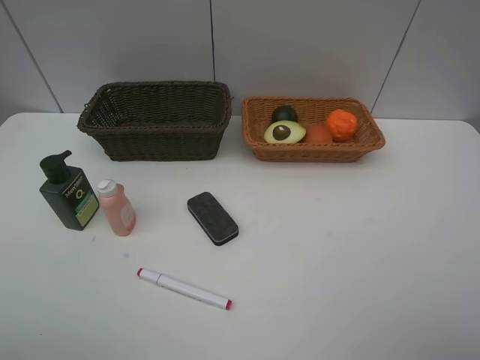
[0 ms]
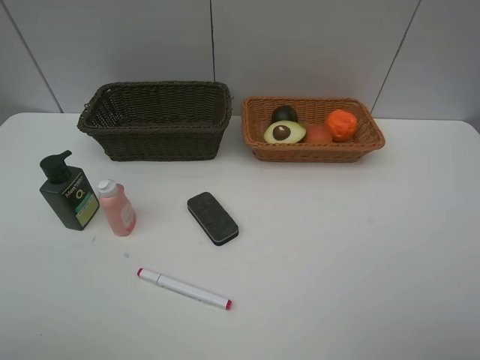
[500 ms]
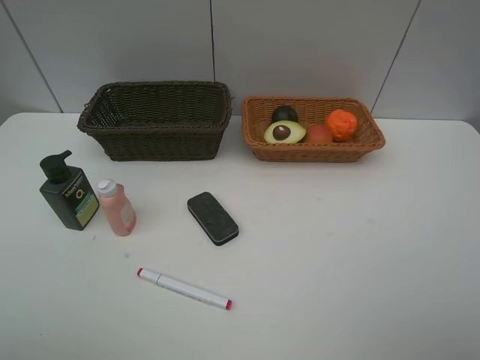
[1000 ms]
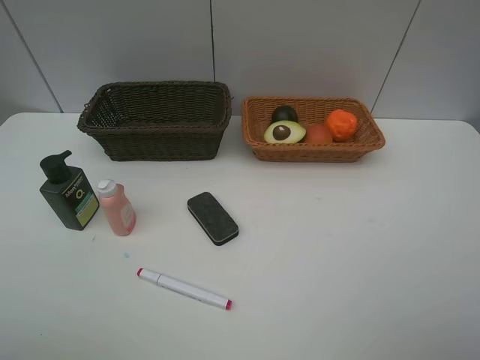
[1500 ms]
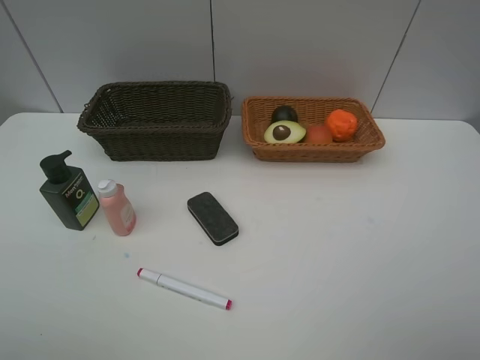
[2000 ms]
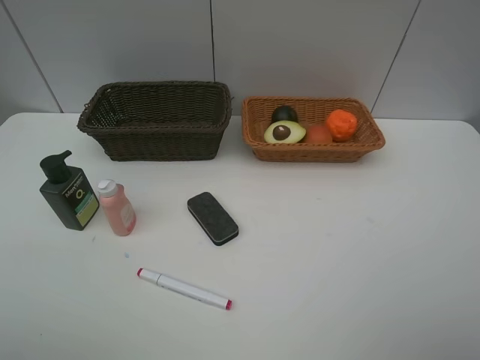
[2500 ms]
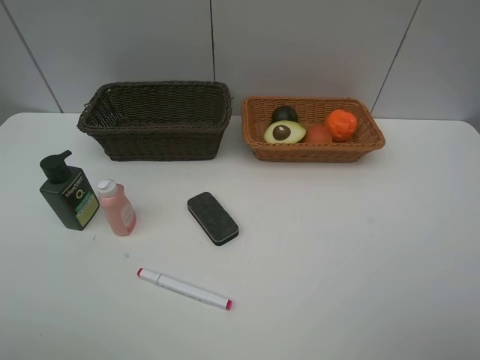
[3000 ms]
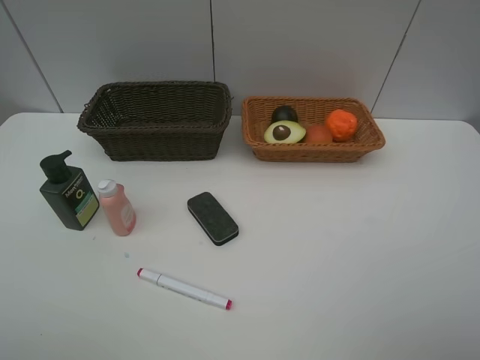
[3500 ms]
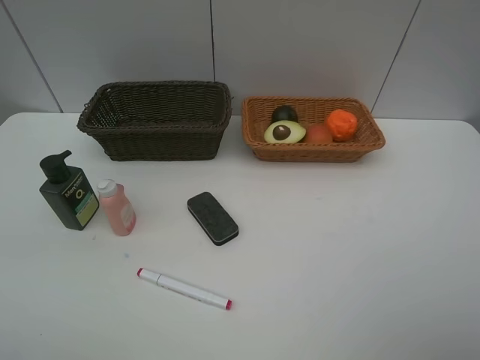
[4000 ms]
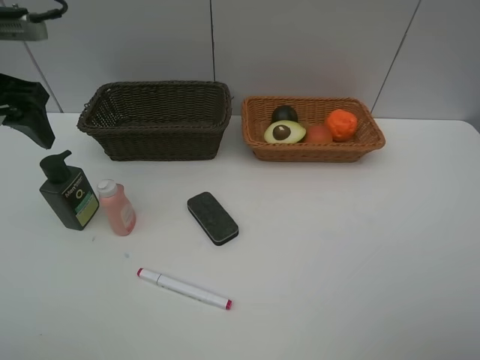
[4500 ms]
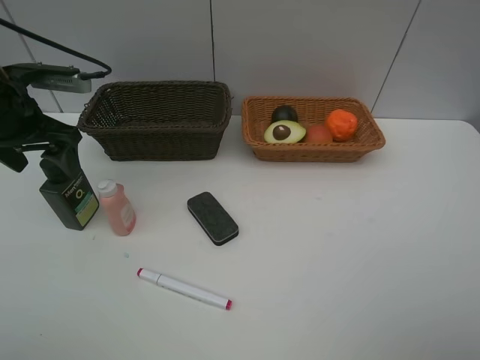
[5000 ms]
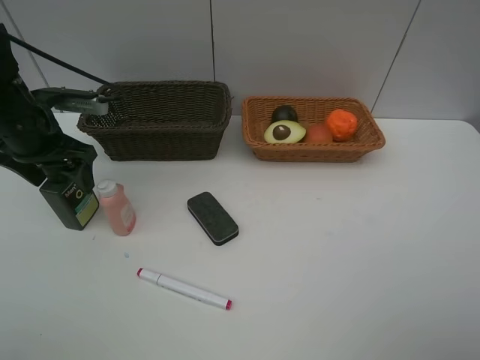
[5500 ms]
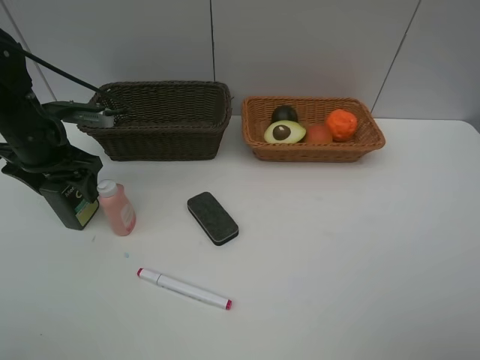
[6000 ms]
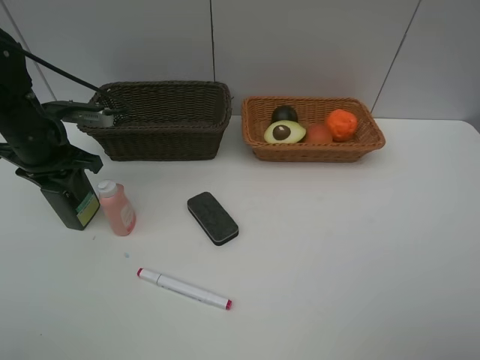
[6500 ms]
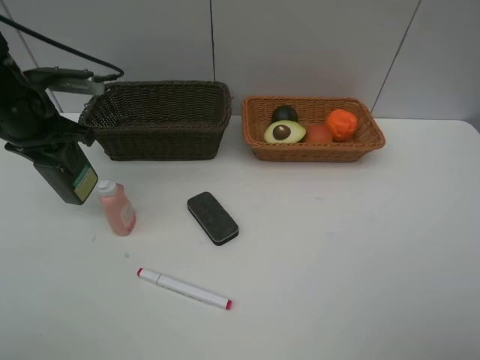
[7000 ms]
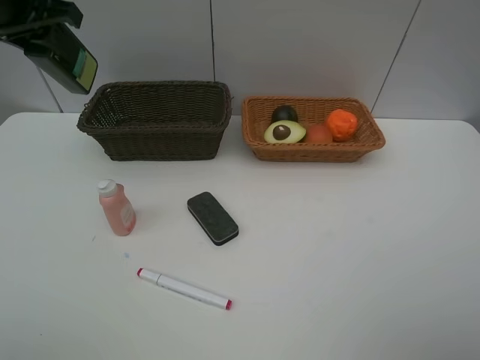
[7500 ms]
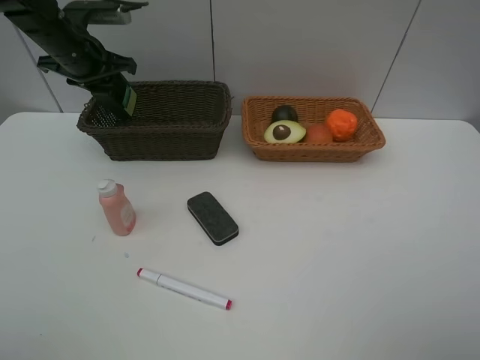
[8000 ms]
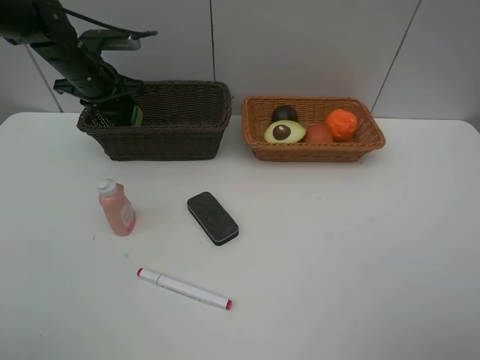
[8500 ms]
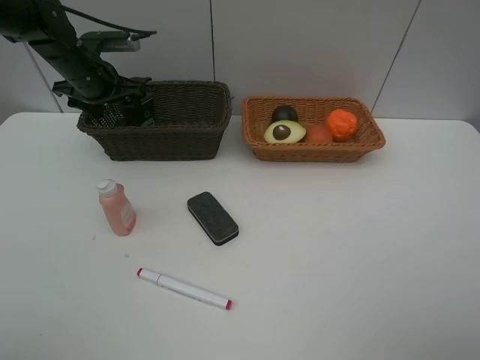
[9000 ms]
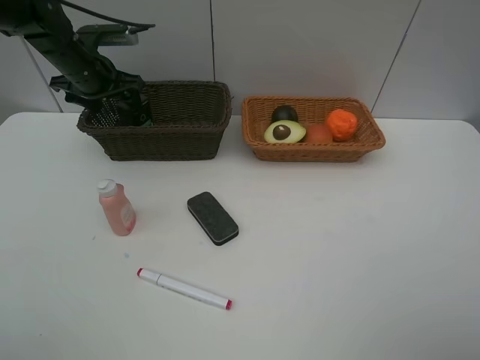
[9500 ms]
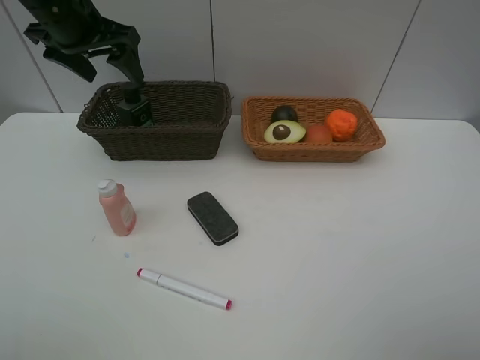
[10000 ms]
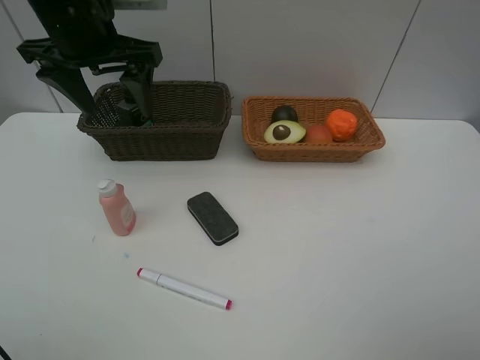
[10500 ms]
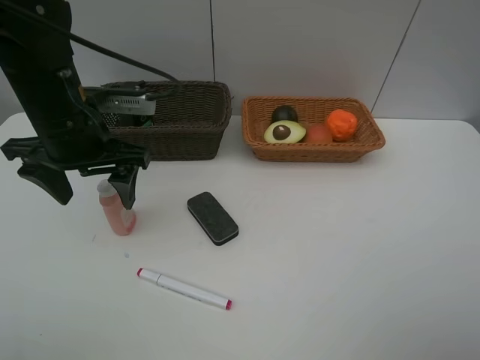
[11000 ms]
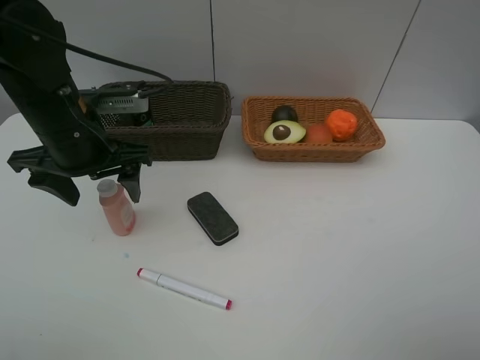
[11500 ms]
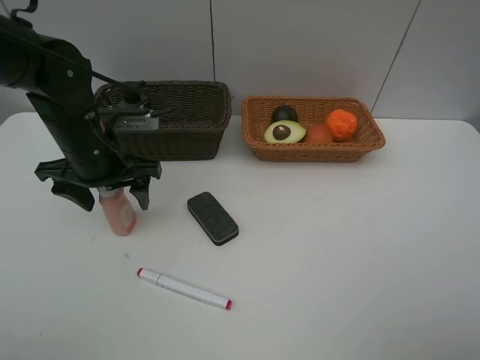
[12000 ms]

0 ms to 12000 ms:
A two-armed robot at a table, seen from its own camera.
Task of the whole recording: Place multiple objects separately in different baskets.
Step, 0 ms to 6500 ms: Pick up the hard facial cleanser with left gripper.
Step, 7000 ms to 9500 ms: Place the hard facial cleanser in the dark basket with left gripper.
4000 ms to 6000 ms: The left gripper moves downward and forward, roughly 20 cm.
6000 ms to 8000 ms: The left gripper heads forward, covering roughly 10 cm, reaches approximately 15 cm upward, then returns, and closes up.
8000 ms to 10000 ms: The left gripper moves upward and backward, roughly 10 cm, and opens its fingers.
10000 ms to 12000 ms: The left gripper moves downward and backward, approximately 15 cm.

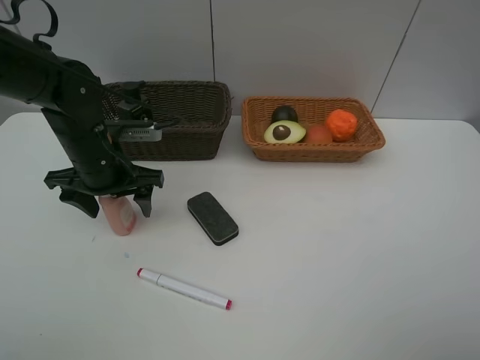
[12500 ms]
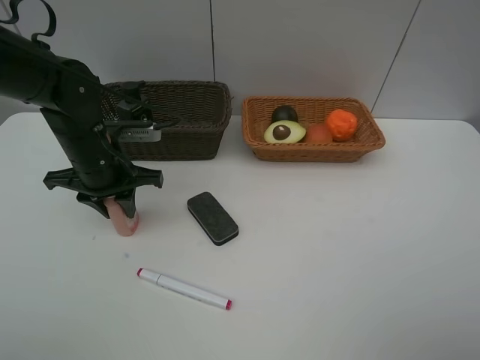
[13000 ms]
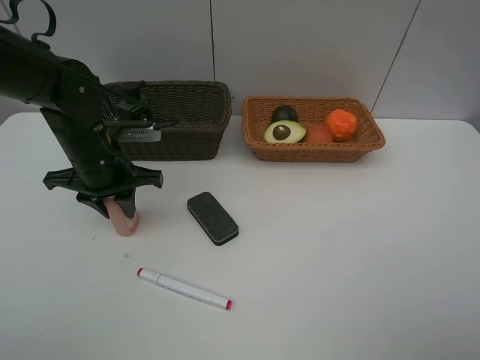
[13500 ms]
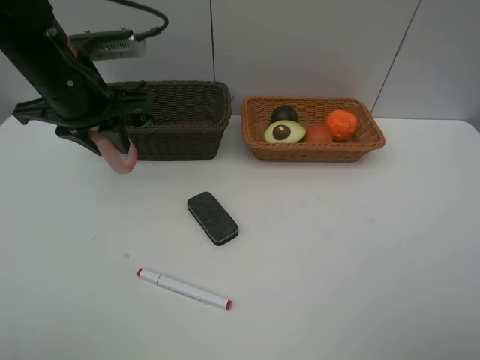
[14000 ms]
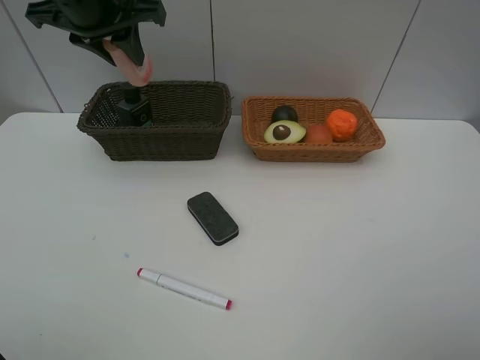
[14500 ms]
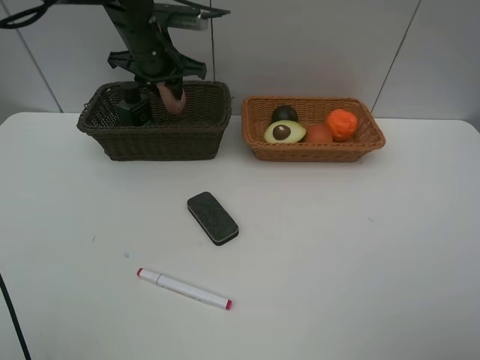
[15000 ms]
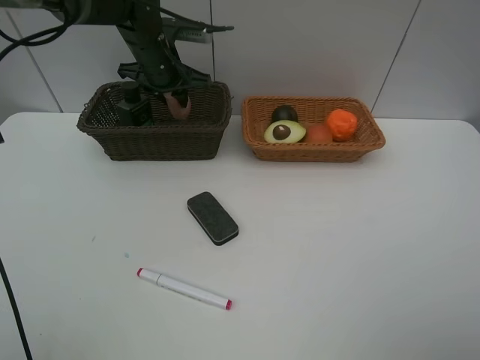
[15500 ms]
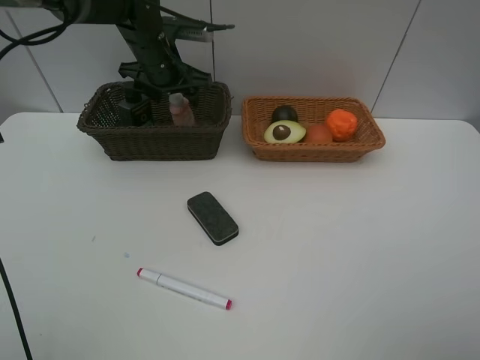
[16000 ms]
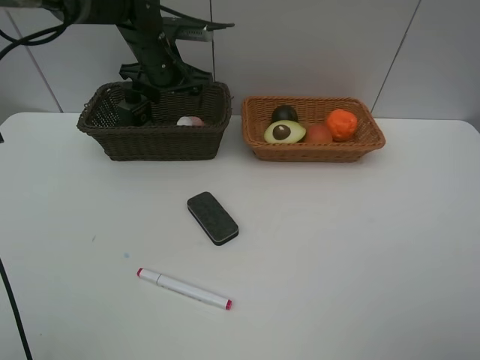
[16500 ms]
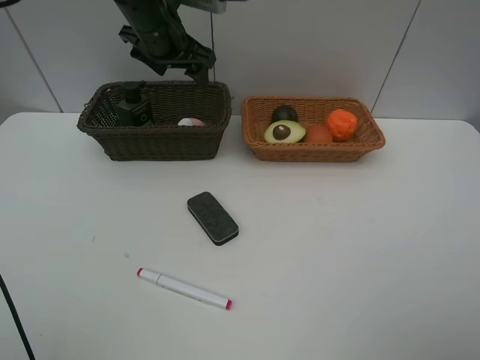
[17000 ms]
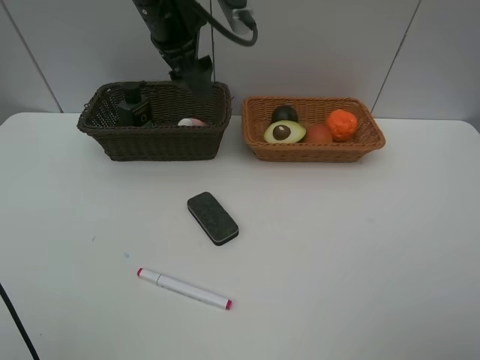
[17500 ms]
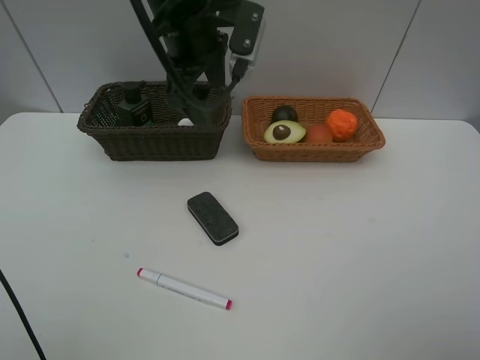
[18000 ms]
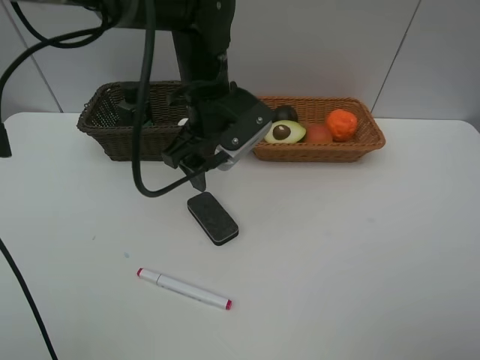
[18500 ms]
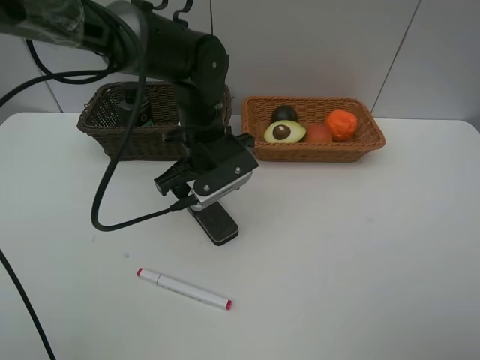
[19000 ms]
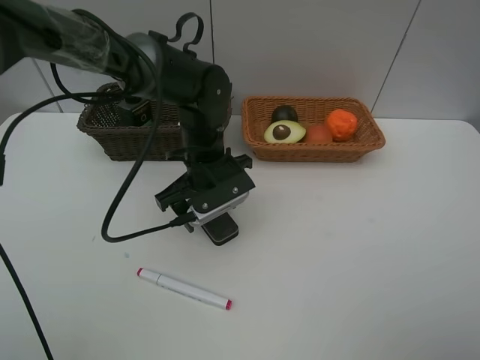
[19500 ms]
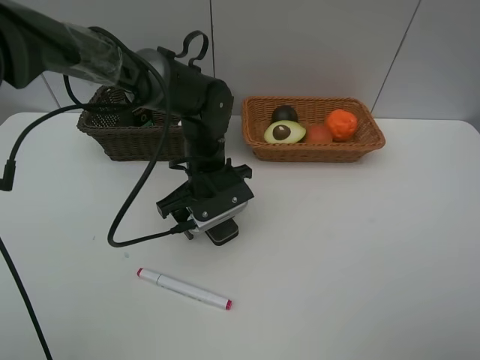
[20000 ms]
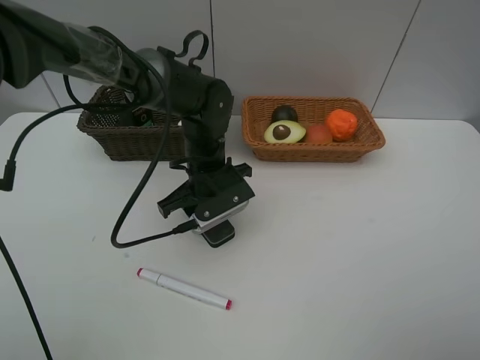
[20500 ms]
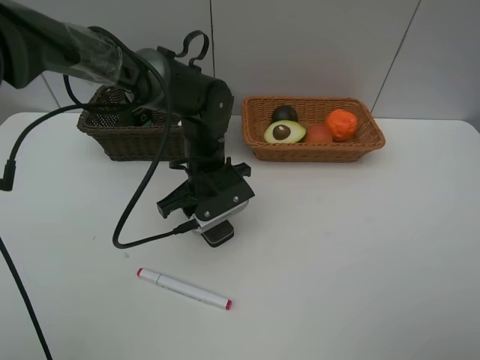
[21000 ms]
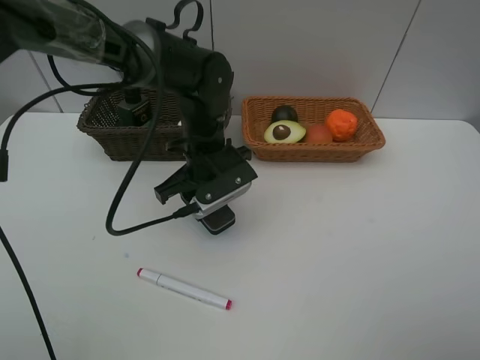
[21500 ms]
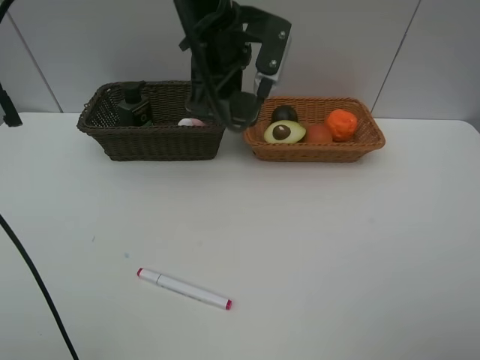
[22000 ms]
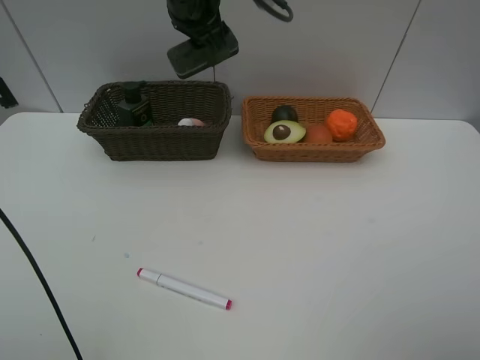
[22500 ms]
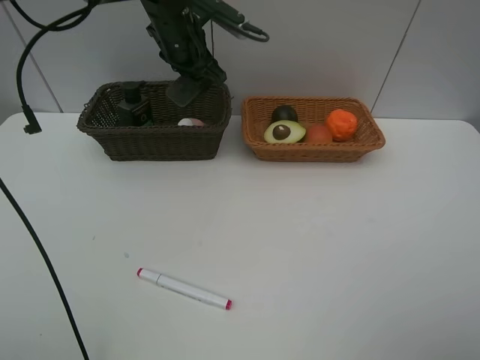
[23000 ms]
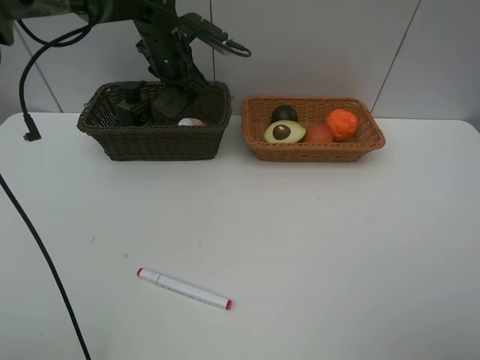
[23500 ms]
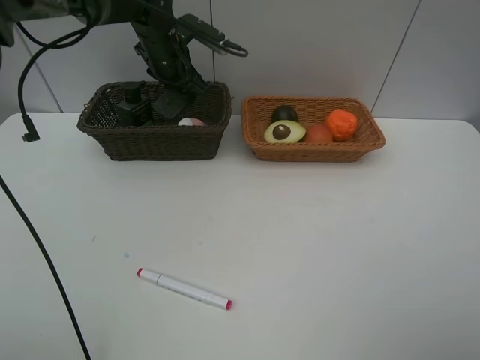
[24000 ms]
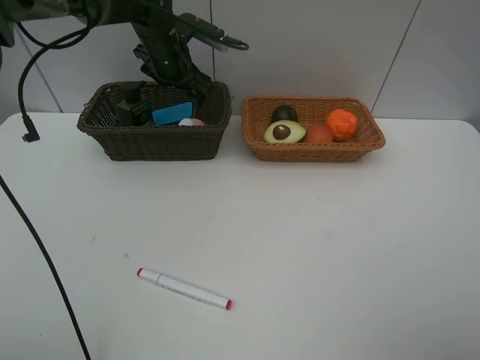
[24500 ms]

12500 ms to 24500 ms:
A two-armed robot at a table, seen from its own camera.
Task of the whole recording: Place multiple objects separately in different baskets.
Step, 14000 ms to 16500 ms: Place the laundry detergent in the dark basket with left gripper.
Step, 17000 ms to 21500 ms: Pick up blackboard eraser with left gripper.
Step, 22000 ms to 24500 ms: Place the blackboard eraser in the dark basket with left gripper.
12500 ms to 14500 ms: The left gripper travels upward by about 20 cm, and closes up.
14500 ms to 16500 ms: The left gripper goes roughly 15 cm downward and forward, and opens.
16500 ms to 18500 ms: The left gripper travels backward and to the right by approximately 15 cm.
18500 ms to 20500 ms: The left gripper heads downward, covering approximately 10 cm, and closes up.
20500 ms to 22500 ms: The left gripper is displaced upward by roughly 20 cm.
22500 ms to 24500 ms: The left gripper is displaced downward, forward and to the left by some 15 cm, and opens its fingers.

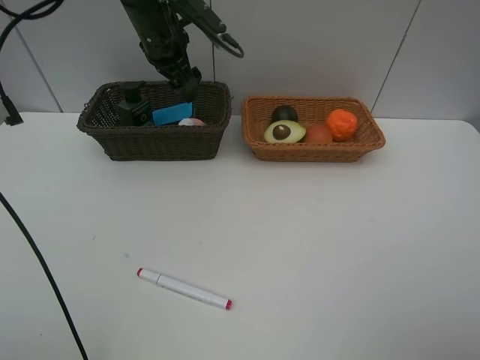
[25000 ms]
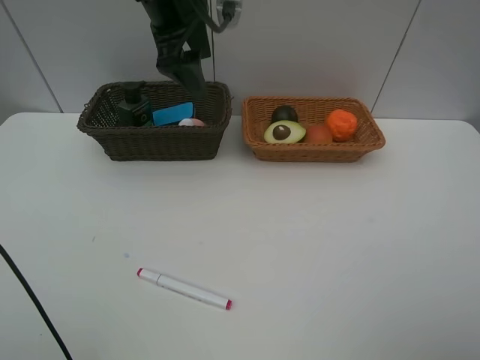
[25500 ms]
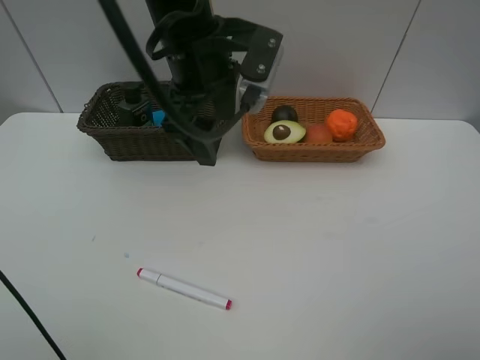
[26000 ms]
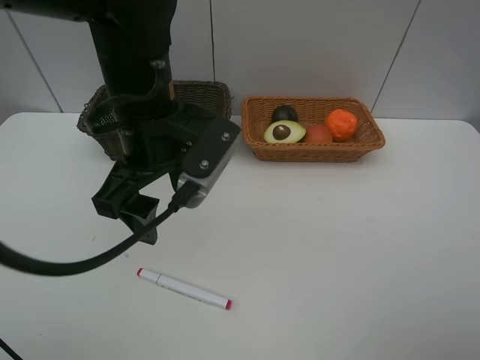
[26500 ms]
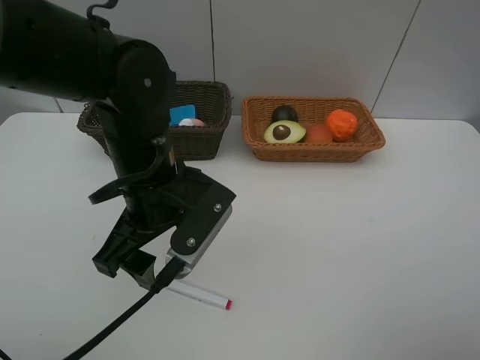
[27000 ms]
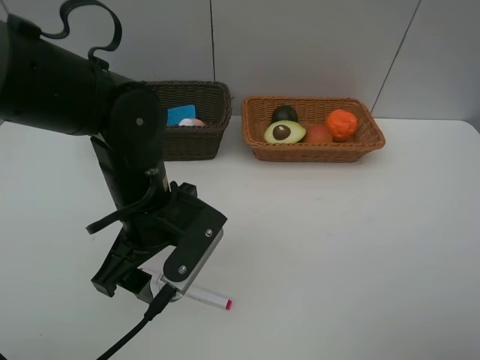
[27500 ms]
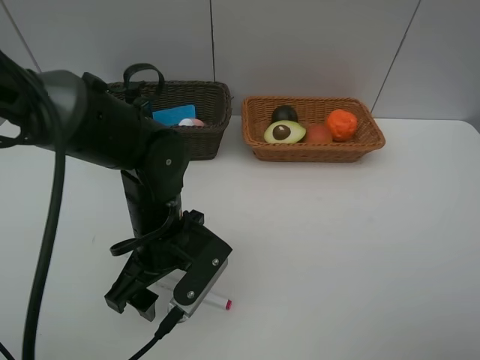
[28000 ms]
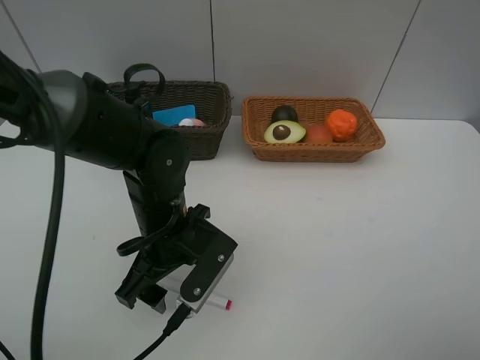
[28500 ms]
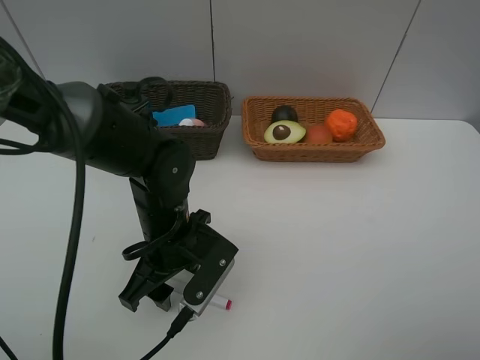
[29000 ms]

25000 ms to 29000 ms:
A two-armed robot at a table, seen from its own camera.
Task of the whole recording: Place multiple objects separately in different baskets.
25000 ms to 27000 ms: The left gripper moves backward, some 25 cm.
27000 ms to 29000 ms: The left gripper is displaced downward by some 10 cm.
